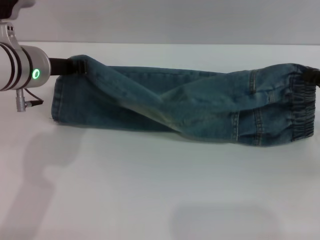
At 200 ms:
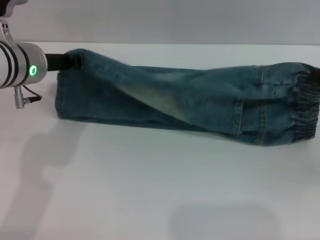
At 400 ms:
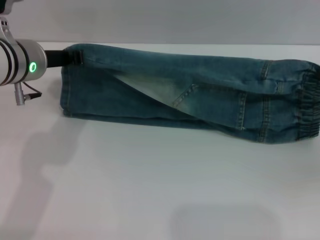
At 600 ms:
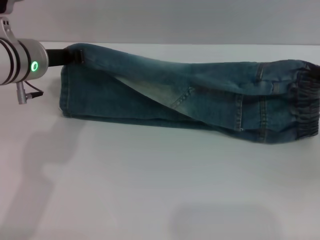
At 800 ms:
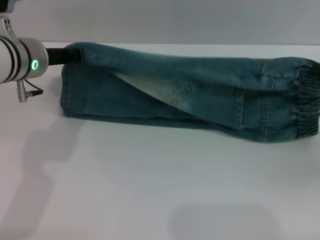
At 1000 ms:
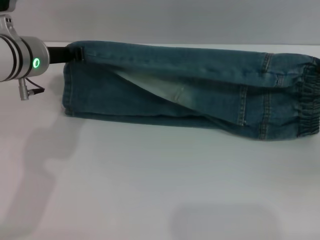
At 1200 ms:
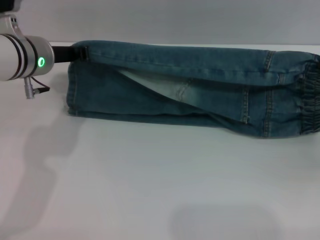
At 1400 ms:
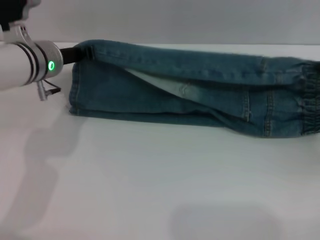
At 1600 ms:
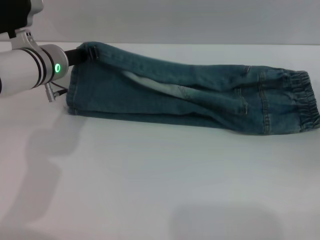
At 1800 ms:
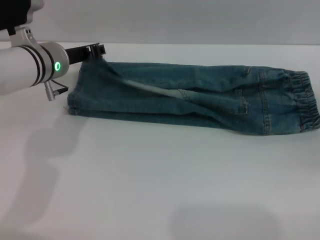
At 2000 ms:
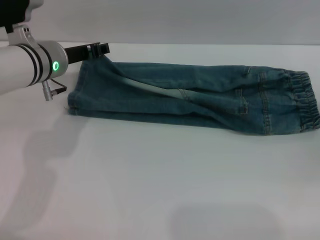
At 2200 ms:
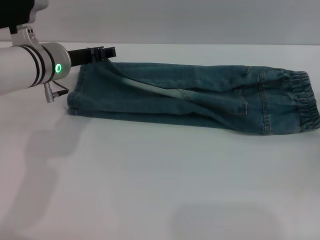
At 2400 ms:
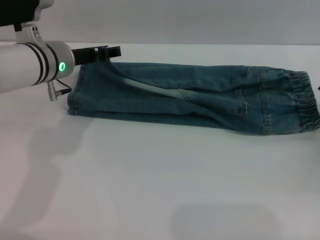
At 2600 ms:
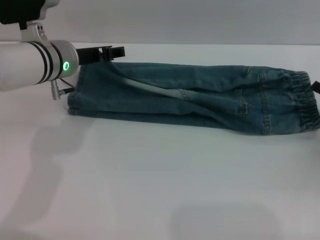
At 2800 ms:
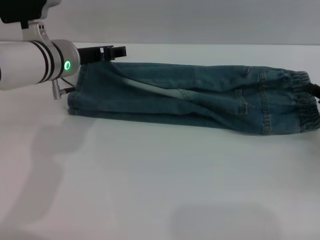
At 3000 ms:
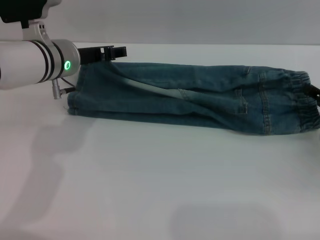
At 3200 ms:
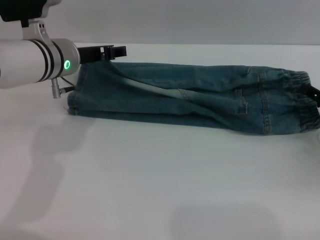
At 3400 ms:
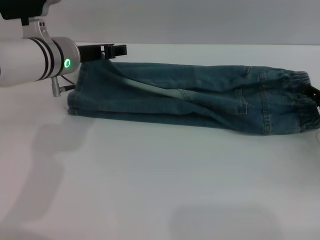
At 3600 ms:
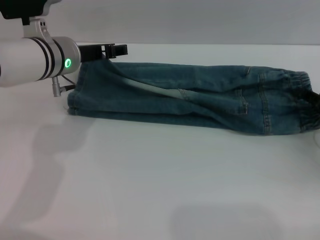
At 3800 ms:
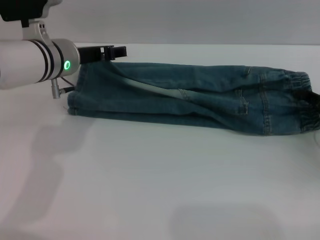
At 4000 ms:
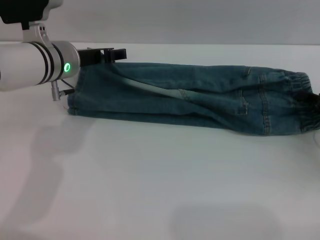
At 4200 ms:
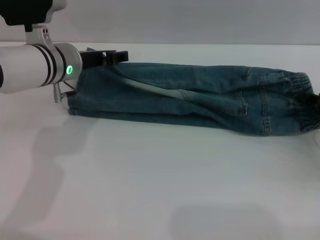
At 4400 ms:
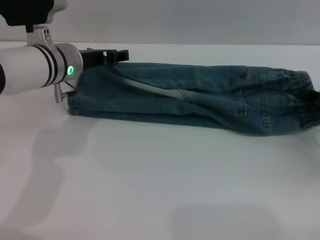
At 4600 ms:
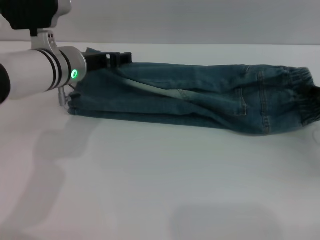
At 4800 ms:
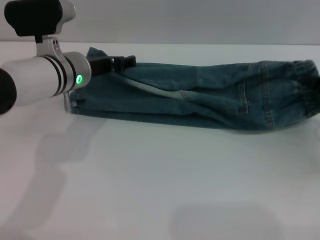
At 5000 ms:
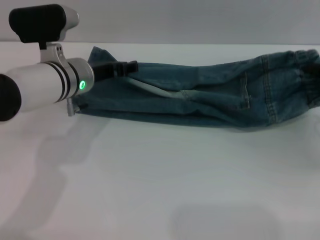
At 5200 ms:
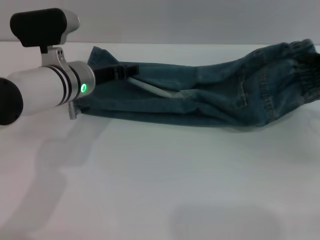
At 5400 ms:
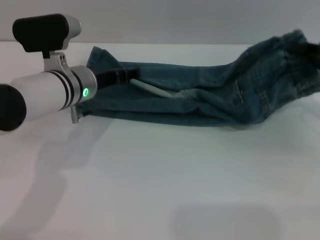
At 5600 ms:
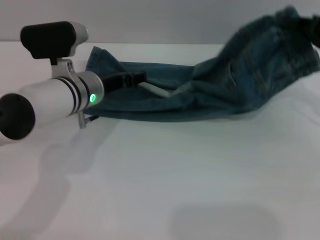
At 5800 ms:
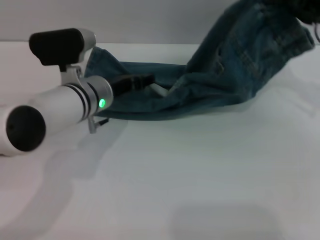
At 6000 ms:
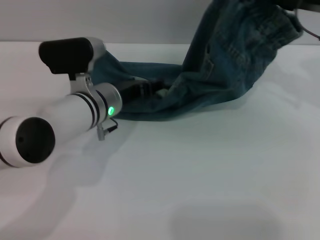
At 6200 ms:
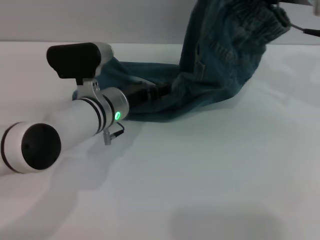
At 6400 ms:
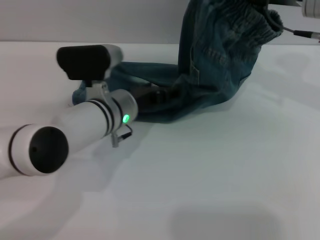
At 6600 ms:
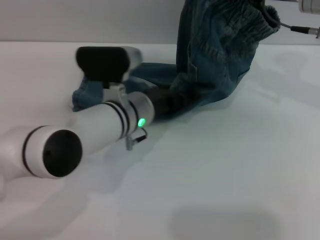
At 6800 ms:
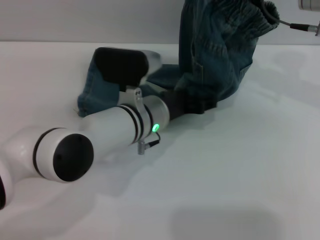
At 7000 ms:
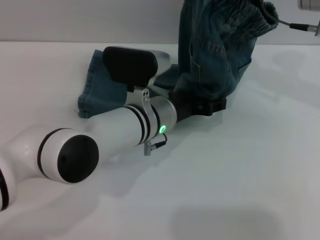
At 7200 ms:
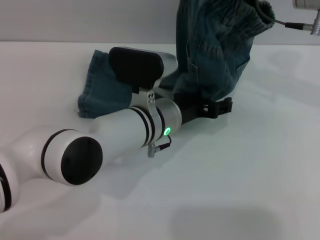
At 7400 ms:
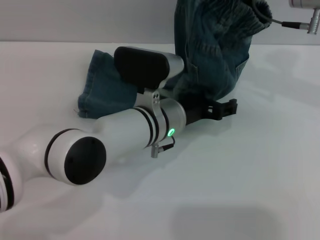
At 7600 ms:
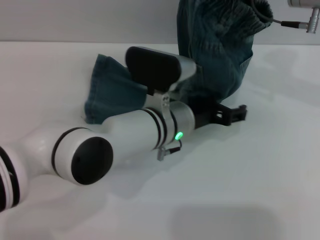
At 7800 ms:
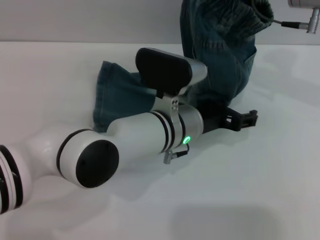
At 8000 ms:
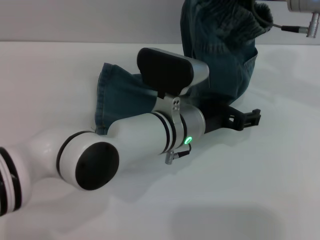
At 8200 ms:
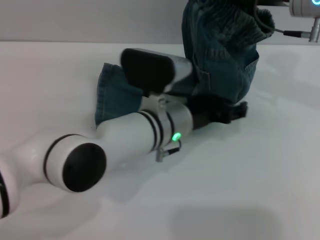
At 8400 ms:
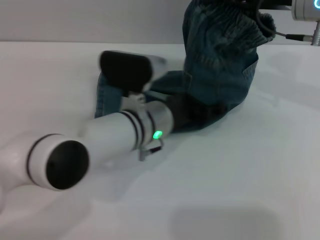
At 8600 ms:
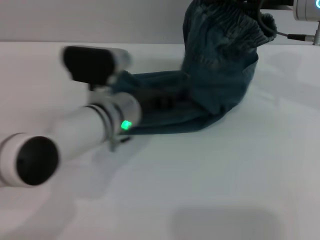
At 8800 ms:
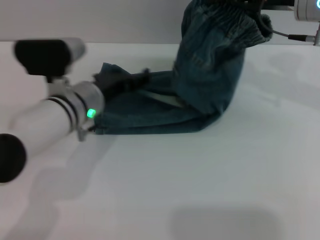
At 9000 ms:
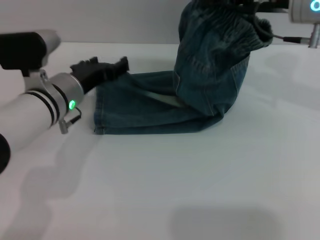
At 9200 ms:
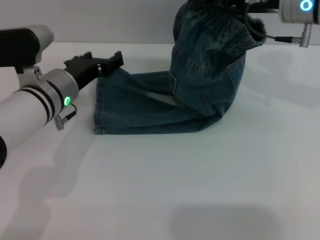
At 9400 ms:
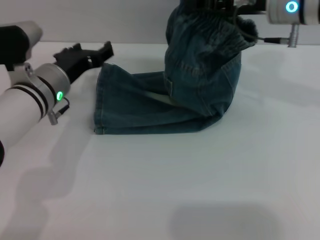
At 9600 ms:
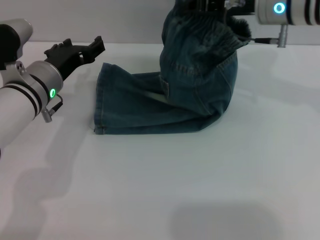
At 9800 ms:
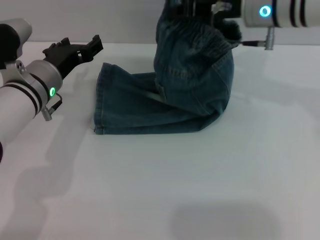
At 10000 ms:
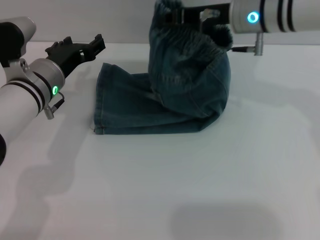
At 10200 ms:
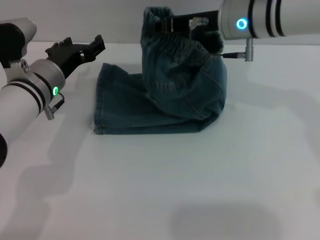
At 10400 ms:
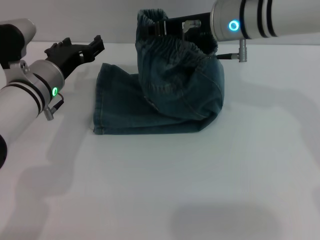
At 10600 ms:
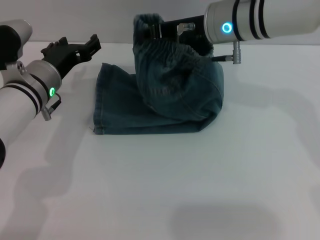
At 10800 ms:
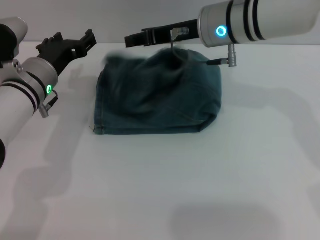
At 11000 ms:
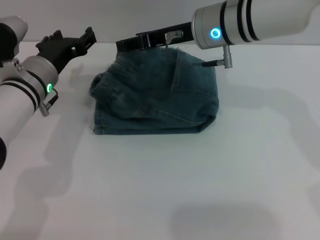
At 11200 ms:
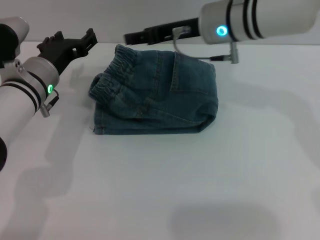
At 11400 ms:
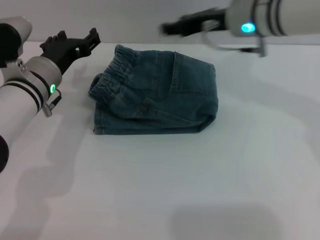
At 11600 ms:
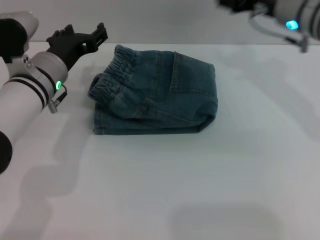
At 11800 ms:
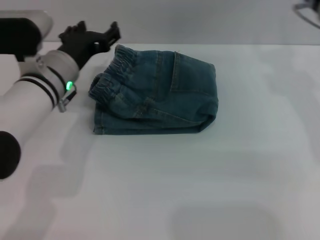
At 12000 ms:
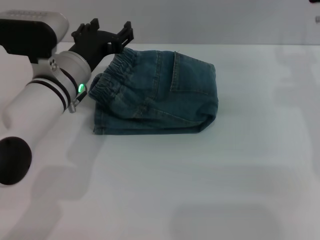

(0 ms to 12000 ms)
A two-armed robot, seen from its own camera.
Step, 0 ms - 2200 ms: Fold the bottom of the pants upward with both grippers.
Step, 2400 ms - 11200 ms: Fold the pants from right to left with the right gripper.
0 ms - 1600 ms: The left gripper heads downward and forward, covering about 5 cm. The right gripper ends up approximately 5 cm from where it was.
1600 ms - 3000 ms: The left gripper opens its fingers. Meanwhile the right gripper opens its fingers.
3000 ms - 4400 ms: The right gripper closes up.
4400 ms - 6000 ms: The right gripper shifts approximately 20 cm upward, forward and to the left. The left gripper moves downward and to the right, roughly 10 cm.
6000 ms - 7600 ms: The right gripper heads to the left, covering some 5 cm; the left gripper travels to the right by approximately 10 cm.
7600 ms - 9000 ms: The left gripper heads to the left, covering roughly 15 cm.
9000 ms - 10400 ms: The right gripper travels to the left by about 10 cm.
10400 ms - 12000 ms: The right gripper moves to the right, roughly 15 cm, and opens up.

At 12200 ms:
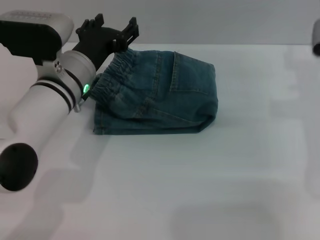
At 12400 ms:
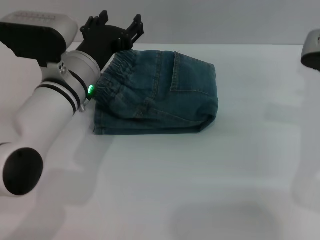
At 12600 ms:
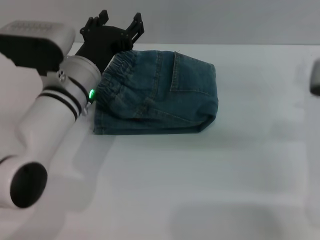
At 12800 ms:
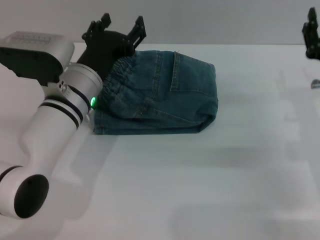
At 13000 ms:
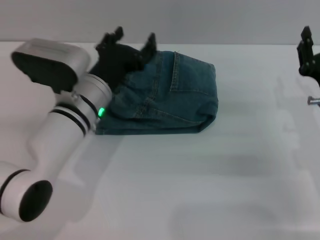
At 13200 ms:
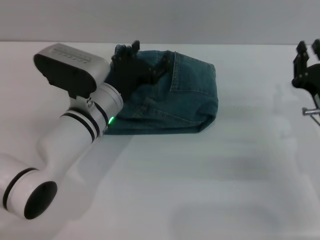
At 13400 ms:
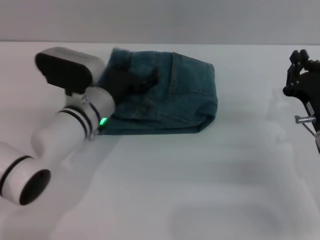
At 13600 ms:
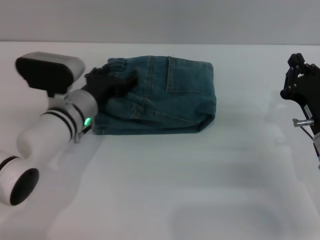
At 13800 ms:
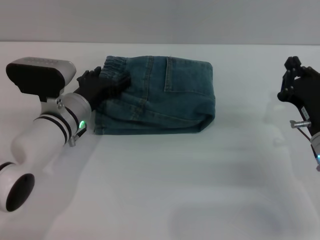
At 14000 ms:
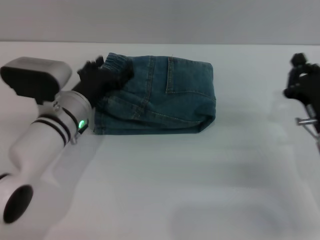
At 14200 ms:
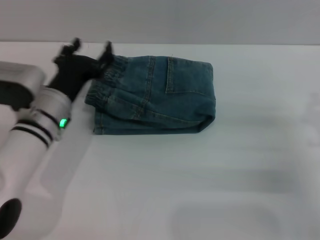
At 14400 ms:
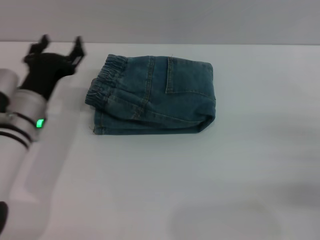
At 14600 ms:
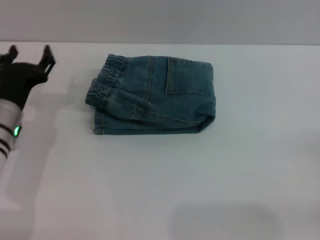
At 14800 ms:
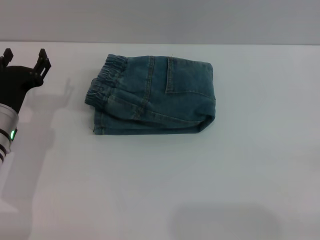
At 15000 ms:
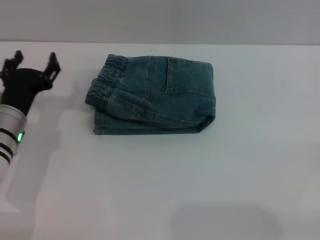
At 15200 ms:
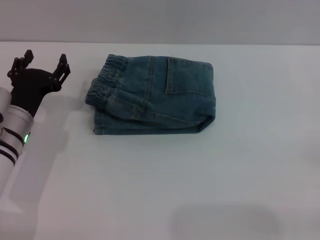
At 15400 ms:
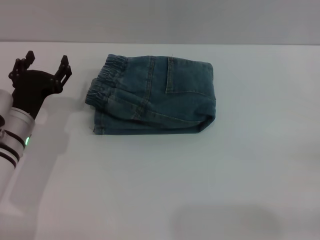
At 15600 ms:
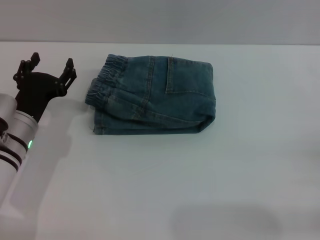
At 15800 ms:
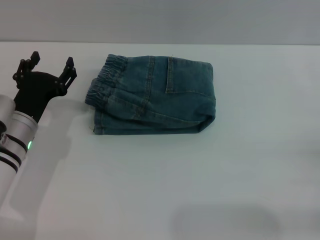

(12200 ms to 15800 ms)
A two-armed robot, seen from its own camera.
12200 ms - 14000 ms: The right gripper heads downward and backward, covering roughly 15 cm, and closes its fingers. The left gripper heads downward, covering about 5 cm.
14000 ms - 15800 ms: The right gripper travels to the right and backward by some 15 cm, and opens its fingers; the left gripper moves to the left, about 5 cm.

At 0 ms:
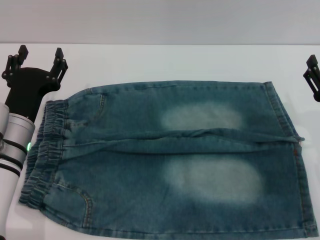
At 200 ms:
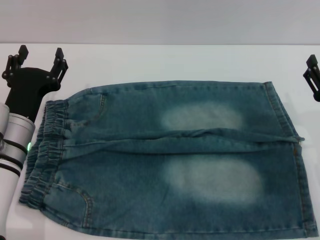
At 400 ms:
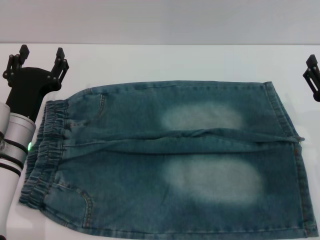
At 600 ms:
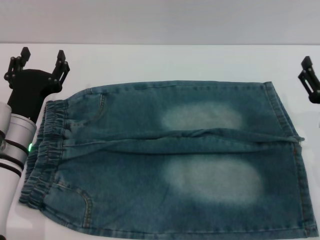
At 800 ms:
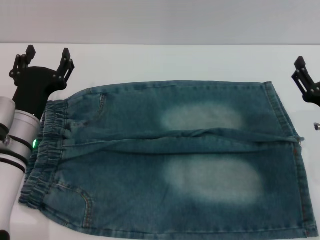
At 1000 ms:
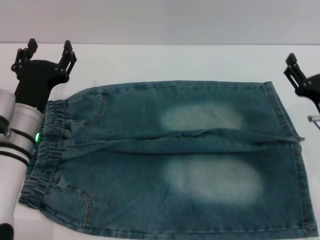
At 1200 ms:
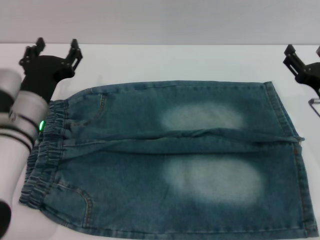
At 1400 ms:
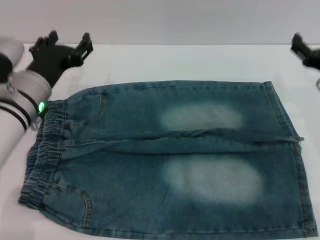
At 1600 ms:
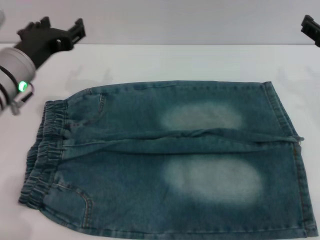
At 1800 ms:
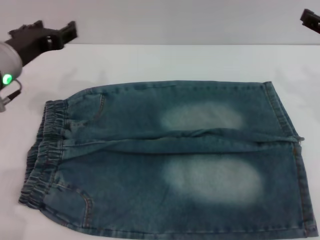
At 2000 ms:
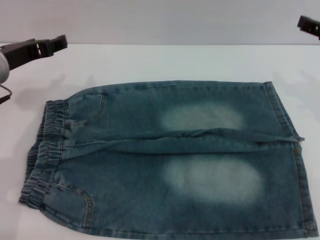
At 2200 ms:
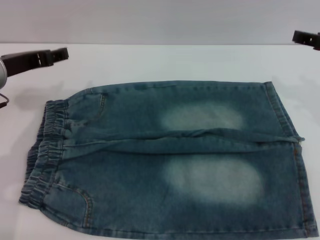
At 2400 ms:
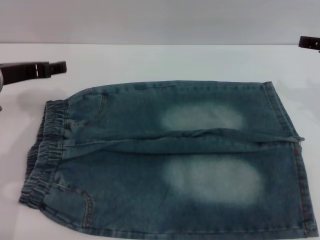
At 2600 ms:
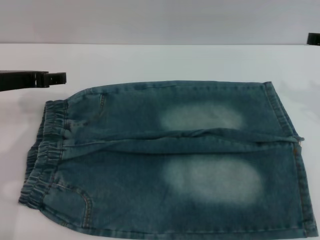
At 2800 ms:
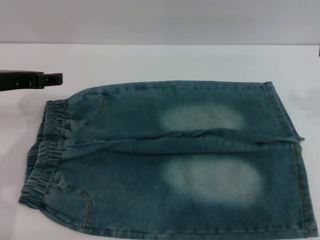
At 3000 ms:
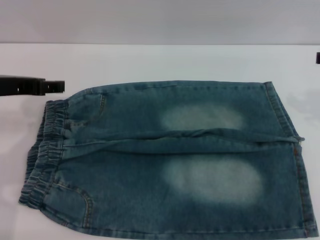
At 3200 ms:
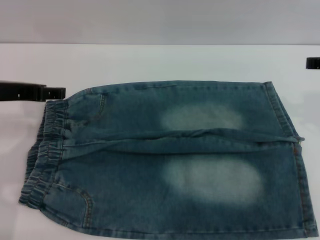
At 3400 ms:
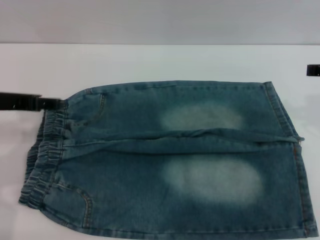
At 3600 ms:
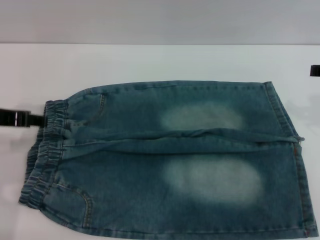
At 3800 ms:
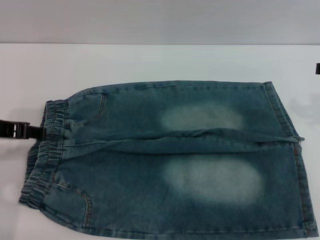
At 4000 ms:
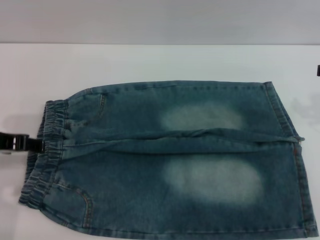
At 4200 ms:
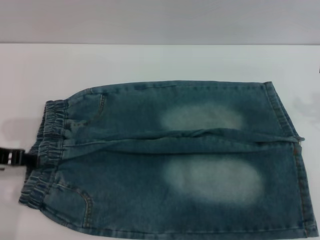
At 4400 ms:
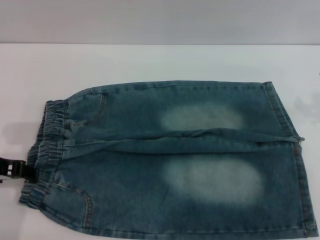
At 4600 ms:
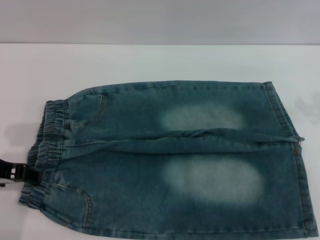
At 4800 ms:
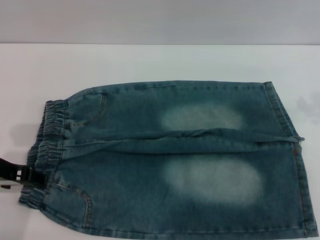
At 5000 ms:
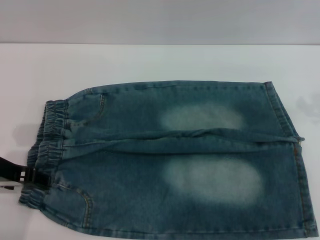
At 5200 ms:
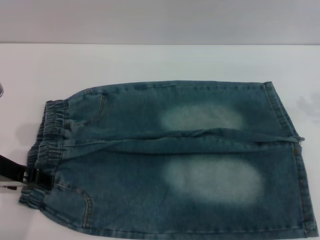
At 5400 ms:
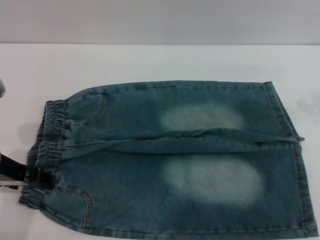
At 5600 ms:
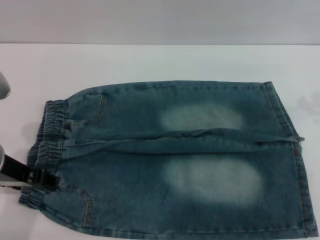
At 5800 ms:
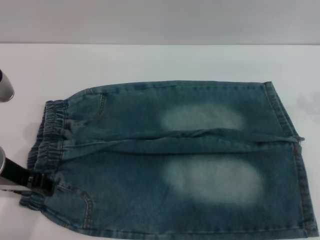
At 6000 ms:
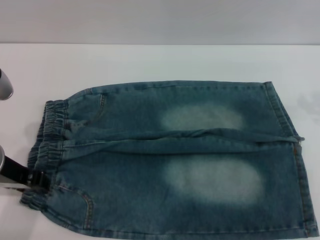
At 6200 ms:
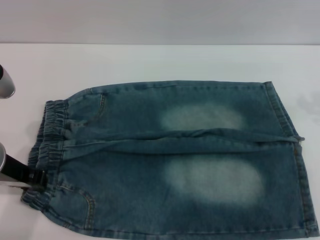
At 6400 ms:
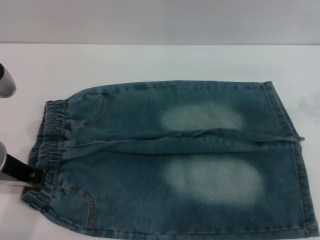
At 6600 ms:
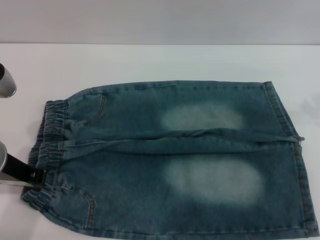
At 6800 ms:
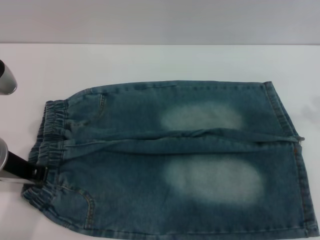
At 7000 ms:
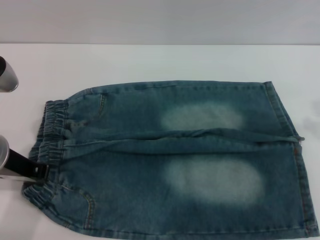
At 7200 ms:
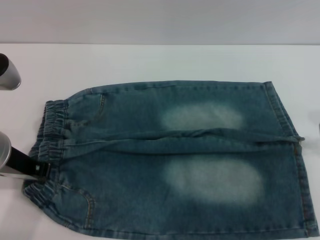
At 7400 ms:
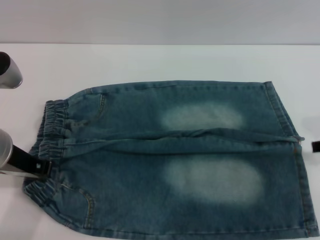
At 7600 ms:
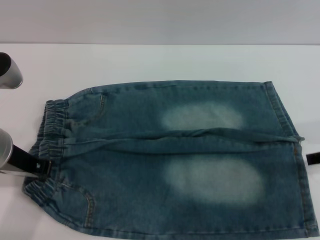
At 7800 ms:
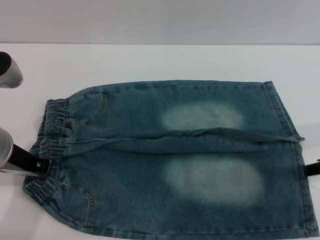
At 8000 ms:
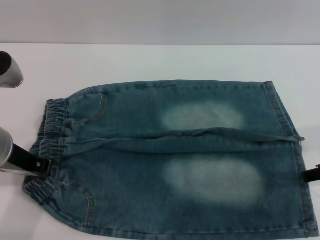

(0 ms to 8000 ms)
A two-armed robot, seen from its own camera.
0 ms - 1600 ms: The left gripper goes some 10 cm upward. Meanwhile the right gripper shifts some 15 cm upward and forward.
1600 ms - 3200 ms: The left gripper shifts by about 5 cm. Meanwhile the right gripper heads upward, covering some 10 cm.
3200 ms - 4800 ms: The left gripper moves roughly 5 cm.
4800 ms - 6400 ms: The left gripper closes up.
